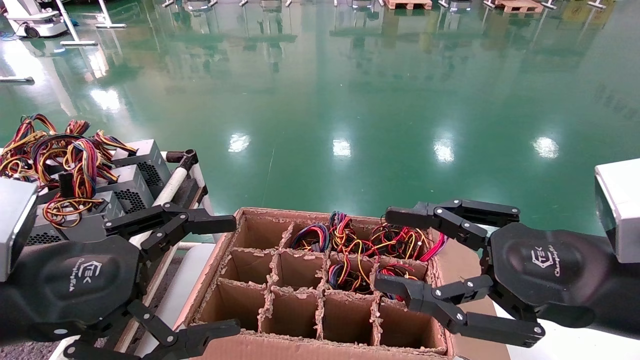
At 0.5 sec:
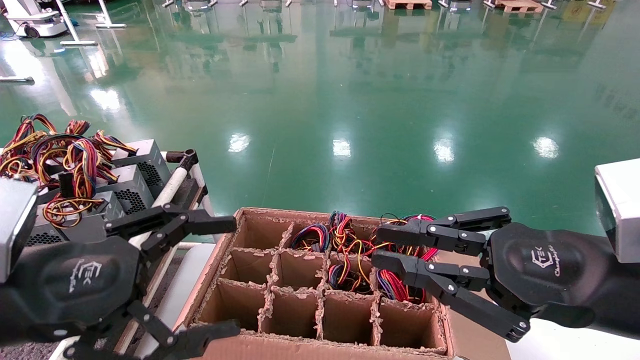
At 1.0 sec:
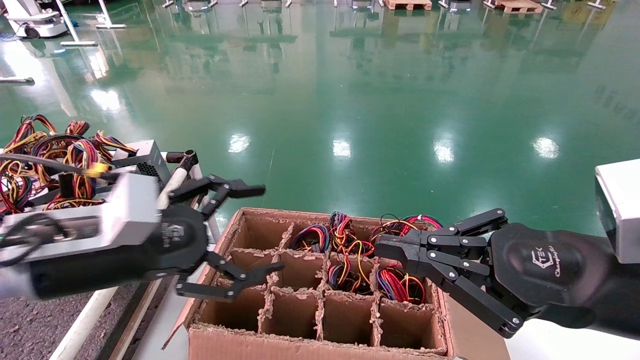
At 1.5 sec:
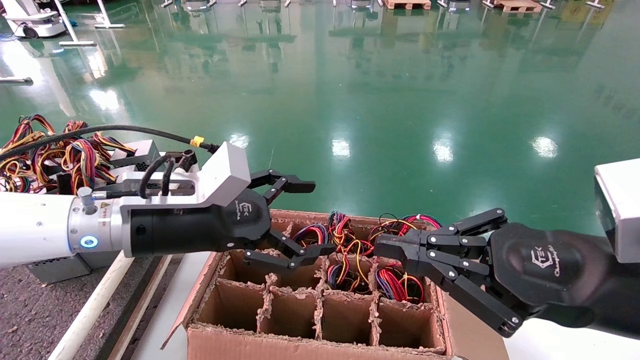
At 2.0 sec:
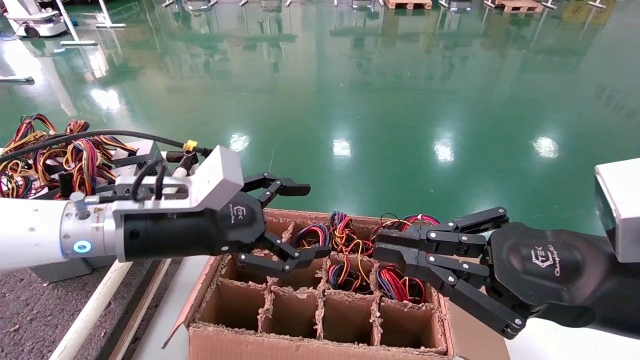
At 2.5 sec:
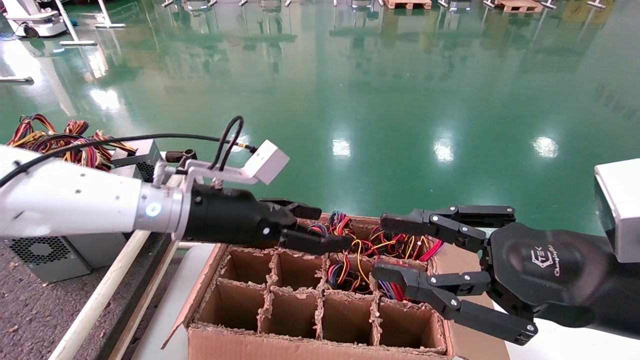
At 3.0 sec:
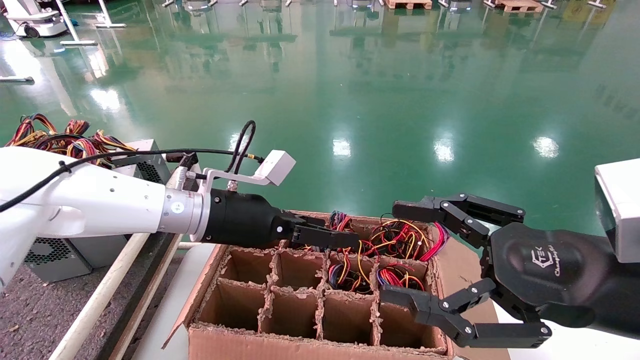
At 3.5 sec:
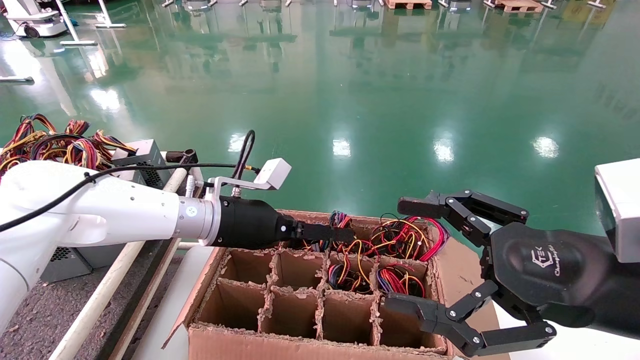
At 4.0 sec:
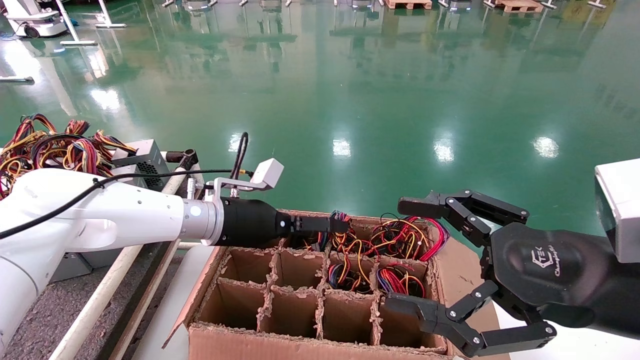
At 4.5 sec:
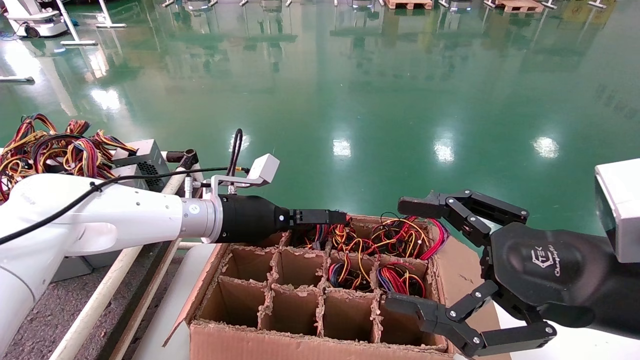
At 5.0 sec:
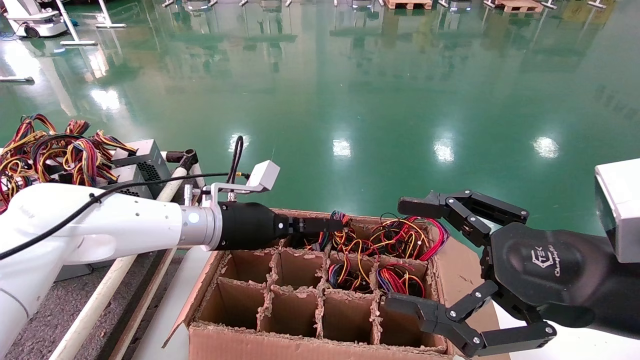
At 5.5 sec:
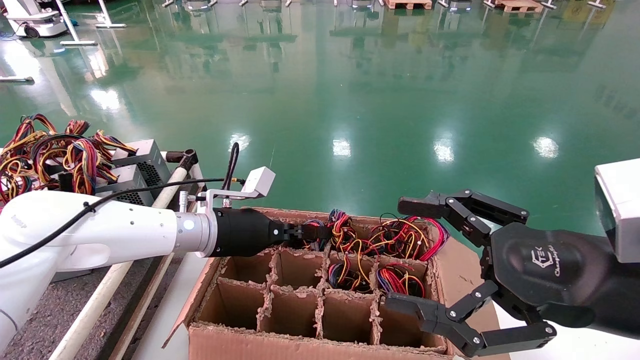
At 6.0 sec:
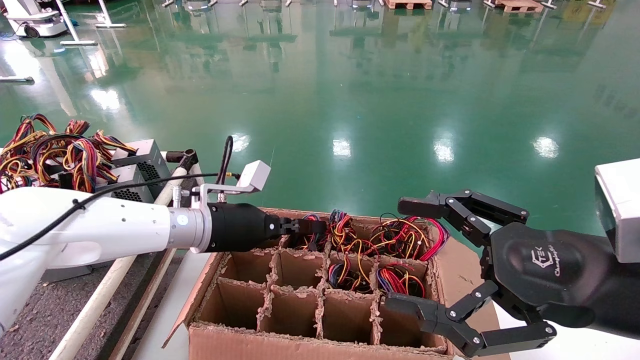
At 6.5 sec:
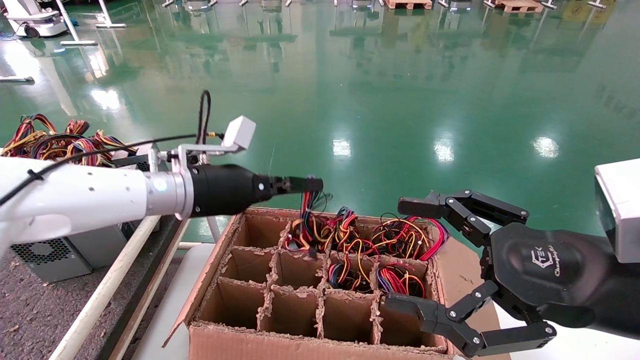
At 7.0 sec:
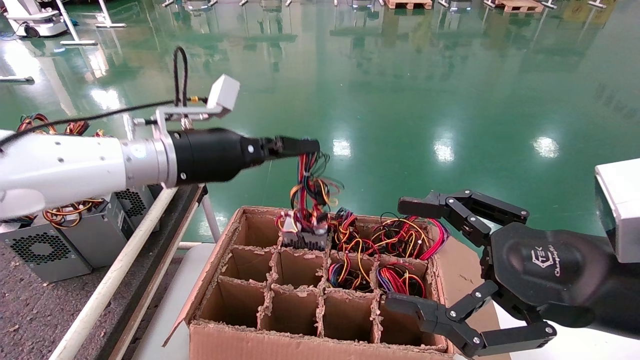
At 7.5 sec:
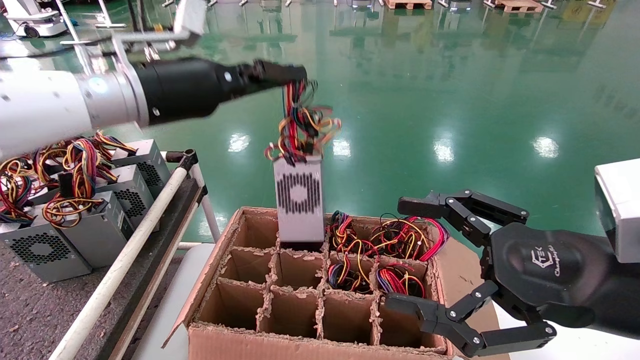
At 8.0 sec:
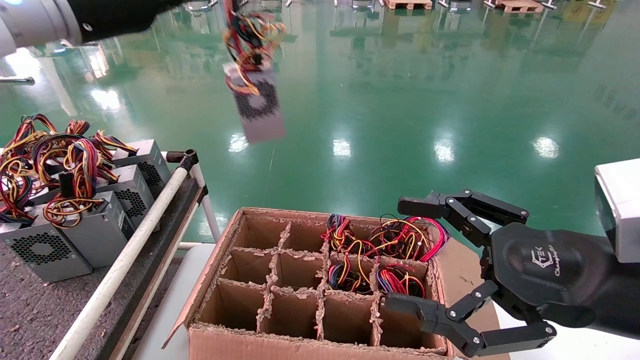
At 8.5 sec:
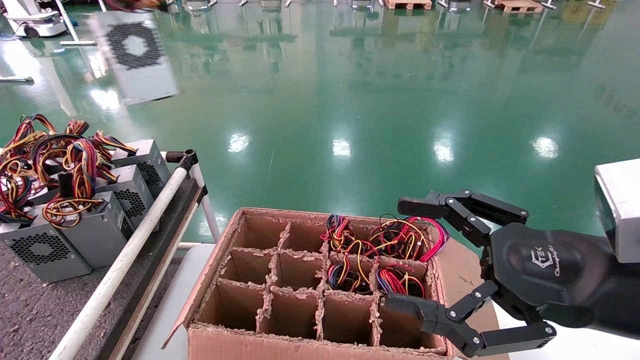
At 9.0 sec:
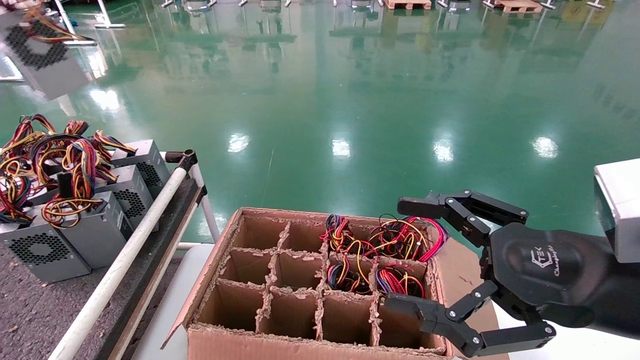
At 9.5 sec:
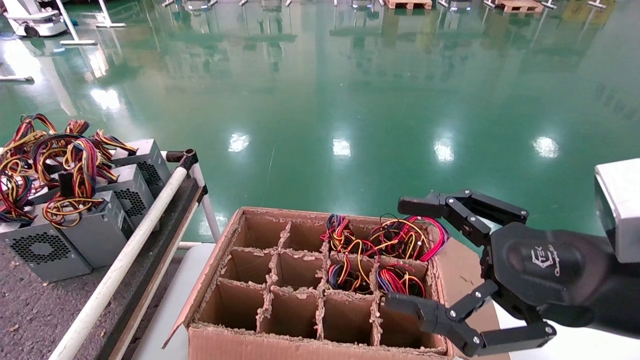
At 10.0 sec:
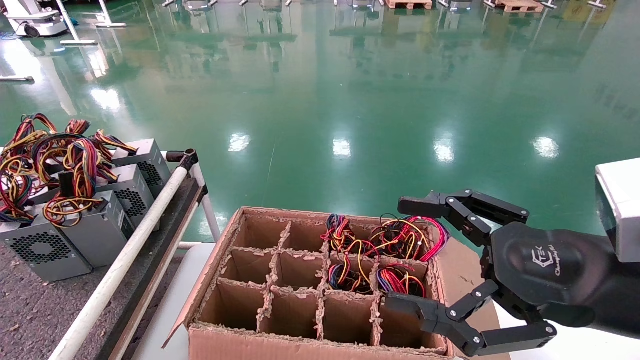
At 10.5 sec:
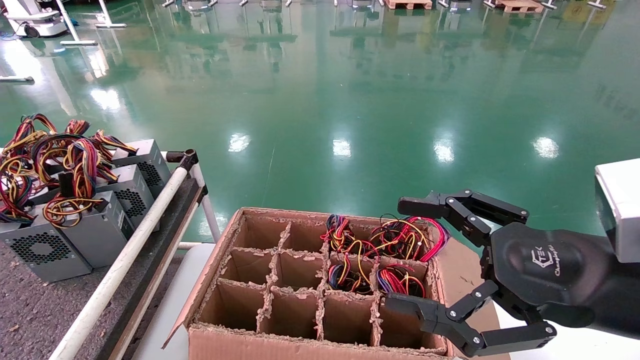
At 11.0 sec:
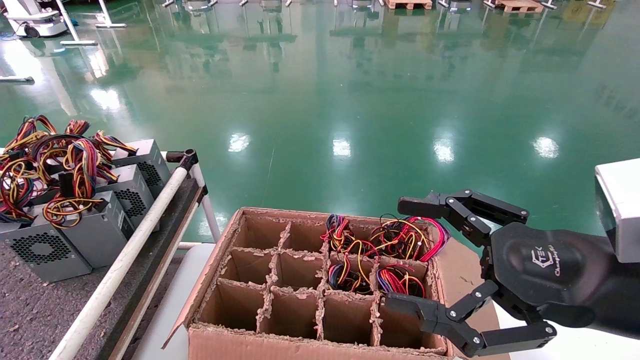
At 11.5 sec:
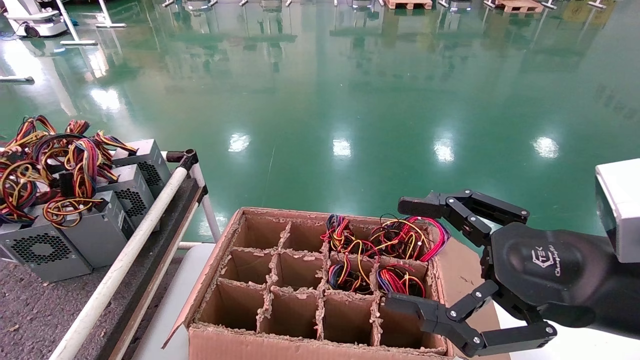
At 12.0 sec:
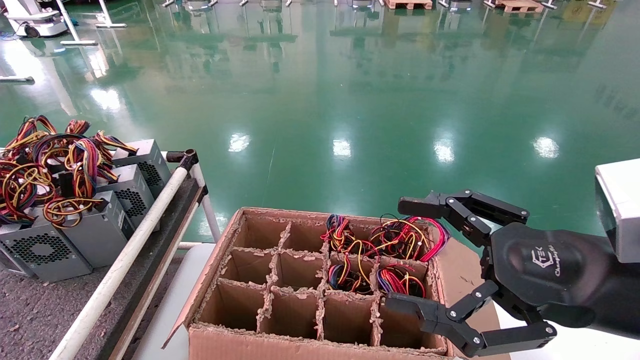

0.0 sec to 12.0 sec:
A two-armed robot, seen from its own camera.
Step, 1.0 sec to 5.5 sec: Grab and lift the power supply from the large box.
0.0 sec to 2.0 sec: The right gripper closes. Meanwhile the left gripper goes roughly 15 cm forward and to the right.
2.0 sec to 4.0 sec: The left gripper goes about 10 cm forward. The right gripper opens up.
4.0 sec to 6.0 sec: The left gripper closes up.
6.0 sec to 8.0 sec: The left gripper moves upward, approximately 25 cm.
8.0 sec to 10.0 sec: The left gripper goes approximately 35 cm to the left.
10.0 sec to 12.0 sec: The left gripper shifts roughly 15 cm downward.

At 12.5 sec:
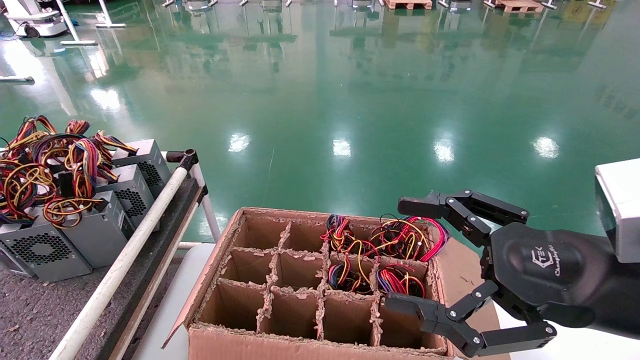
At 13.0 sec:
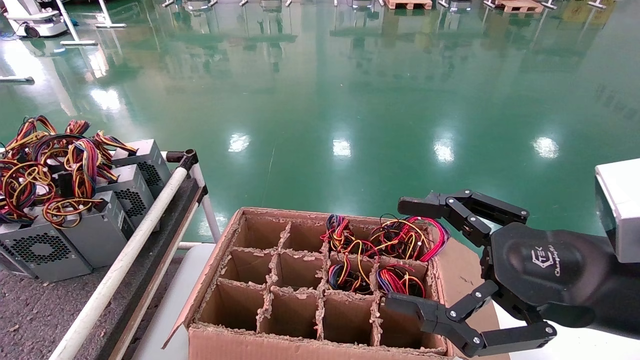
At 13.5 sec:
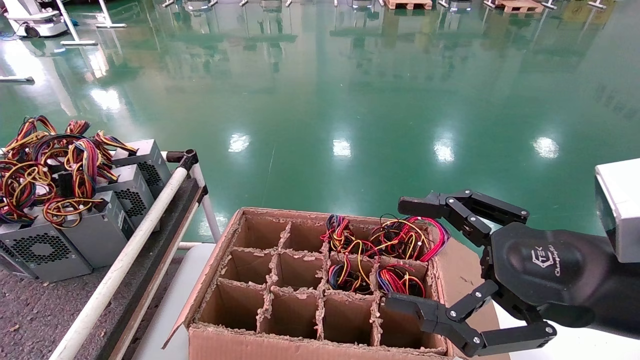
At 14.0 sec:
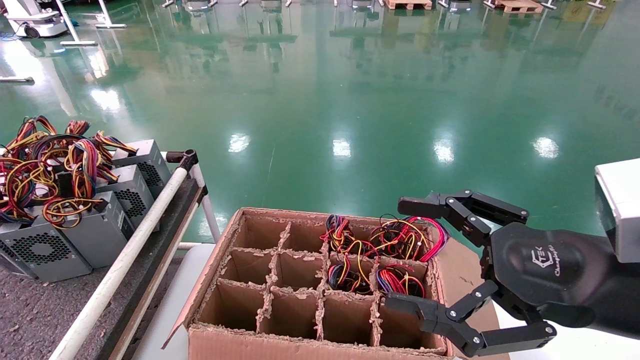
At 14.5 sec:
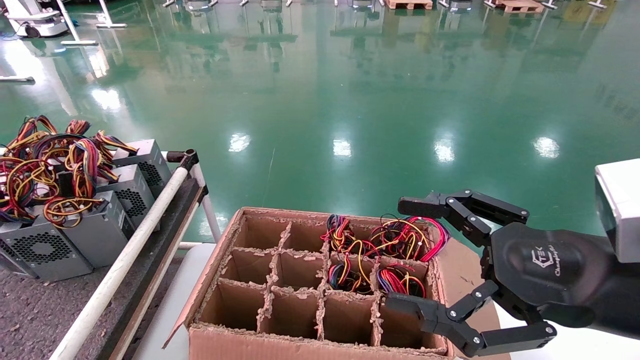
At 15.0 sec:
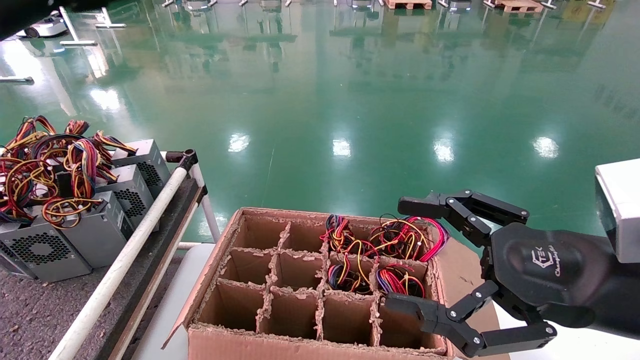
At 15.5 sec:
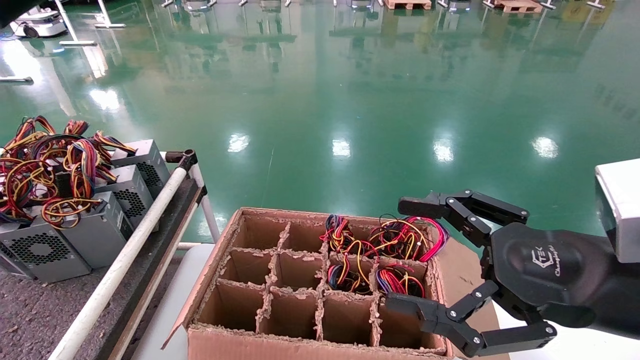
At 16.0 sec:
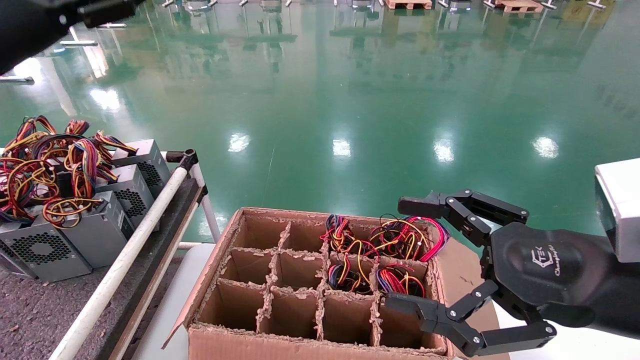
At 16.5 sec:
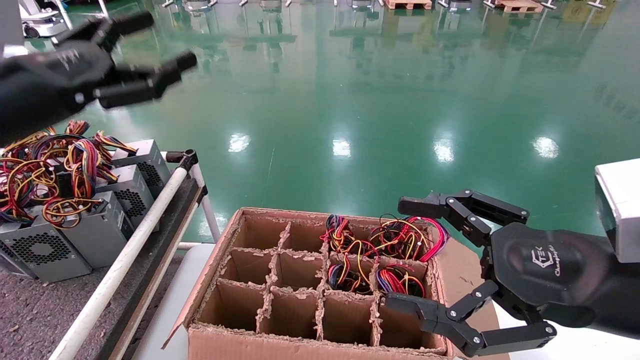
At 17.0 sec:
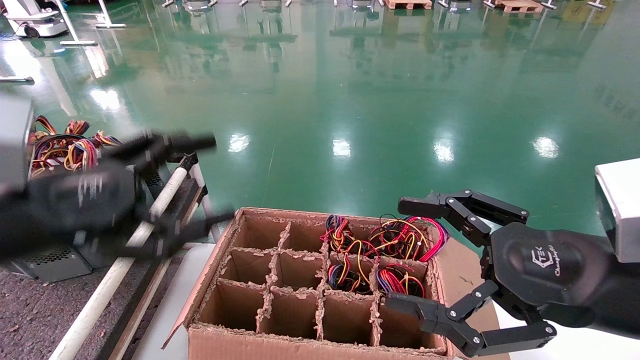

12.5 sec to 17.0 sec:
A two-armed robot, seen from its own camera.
12.5 sec to 14.5 sec: The left gripper is displaced upward and forward by approximately 15 cm, and opens up.
14.5 sec to 17.0 sec: The left gripper shifts approximately 30 cm to the right, downward and backward.
